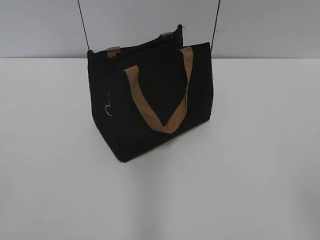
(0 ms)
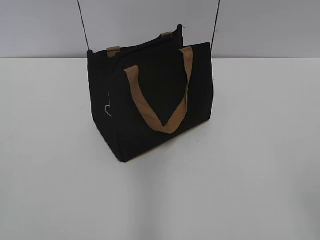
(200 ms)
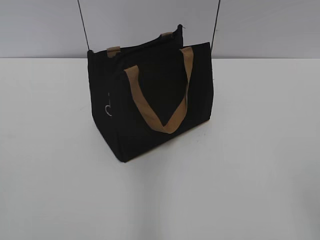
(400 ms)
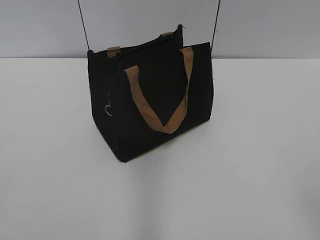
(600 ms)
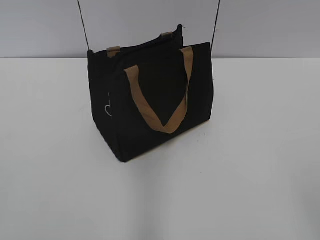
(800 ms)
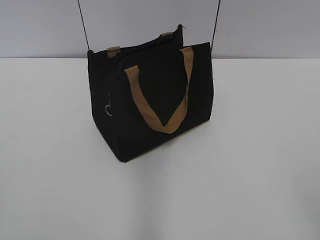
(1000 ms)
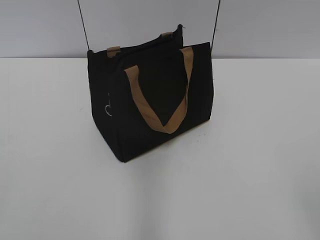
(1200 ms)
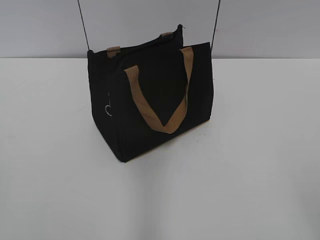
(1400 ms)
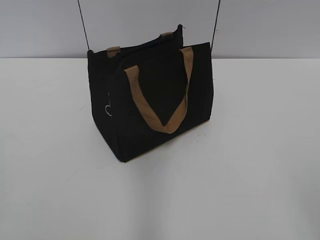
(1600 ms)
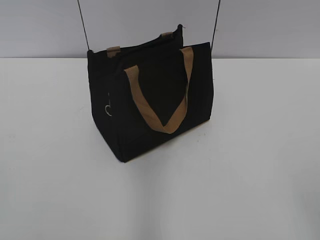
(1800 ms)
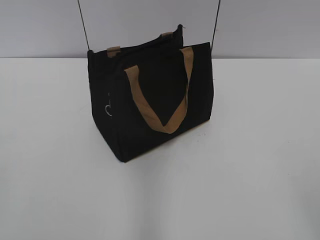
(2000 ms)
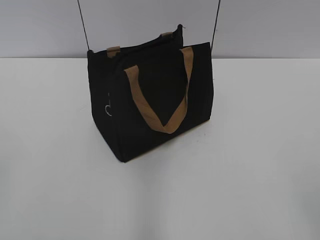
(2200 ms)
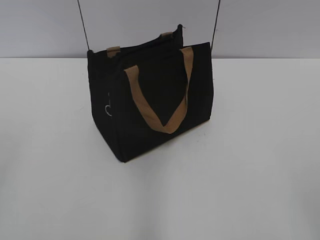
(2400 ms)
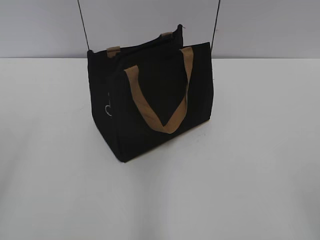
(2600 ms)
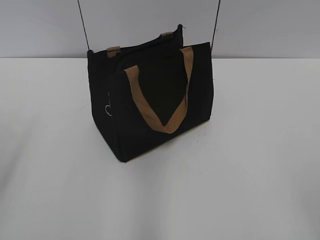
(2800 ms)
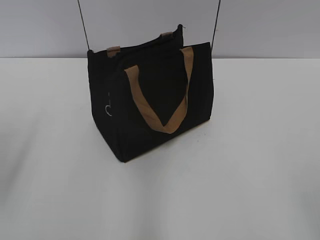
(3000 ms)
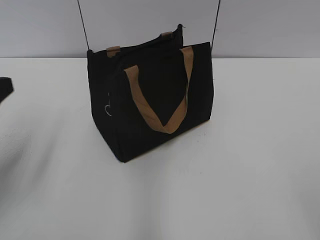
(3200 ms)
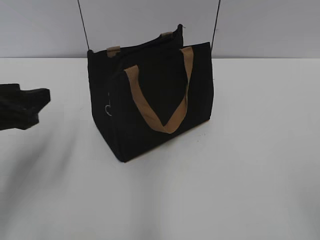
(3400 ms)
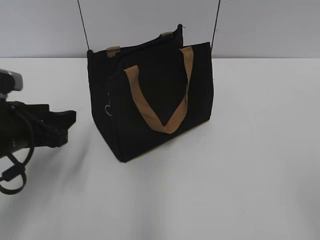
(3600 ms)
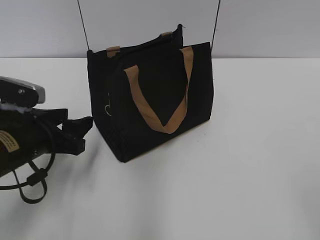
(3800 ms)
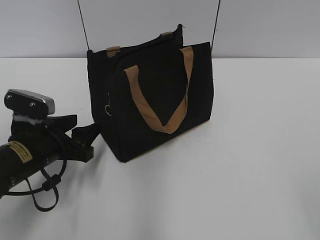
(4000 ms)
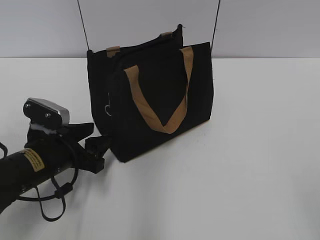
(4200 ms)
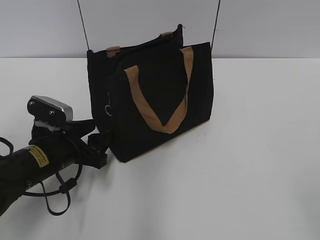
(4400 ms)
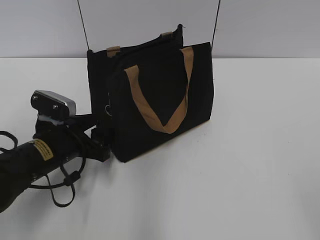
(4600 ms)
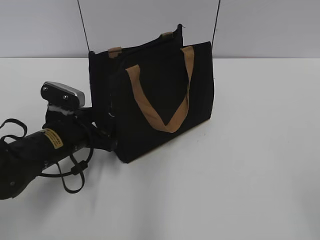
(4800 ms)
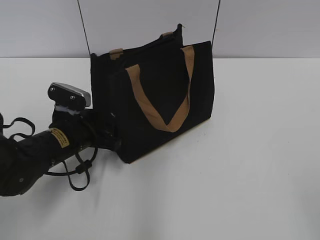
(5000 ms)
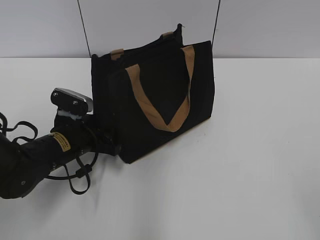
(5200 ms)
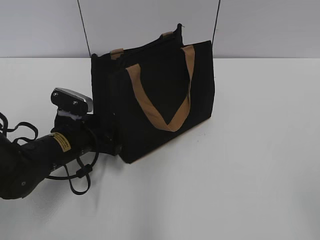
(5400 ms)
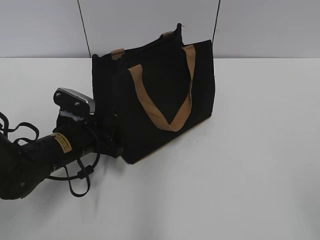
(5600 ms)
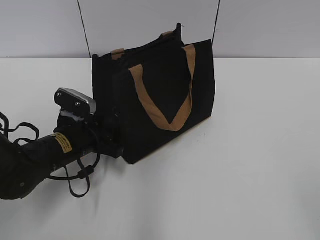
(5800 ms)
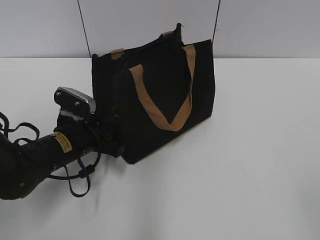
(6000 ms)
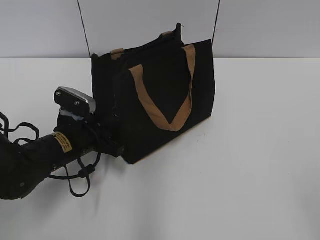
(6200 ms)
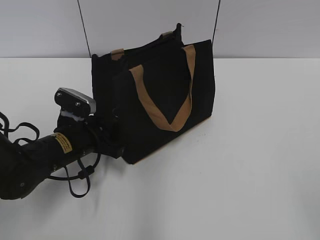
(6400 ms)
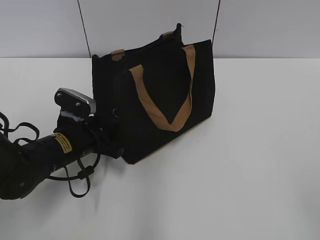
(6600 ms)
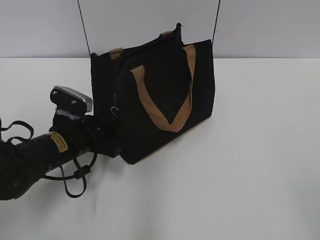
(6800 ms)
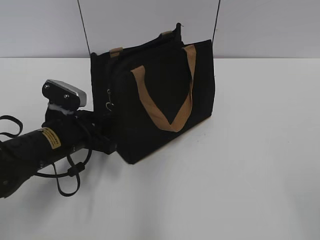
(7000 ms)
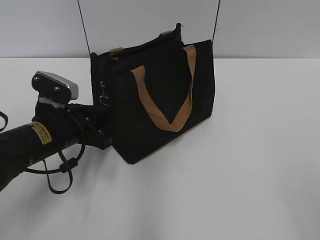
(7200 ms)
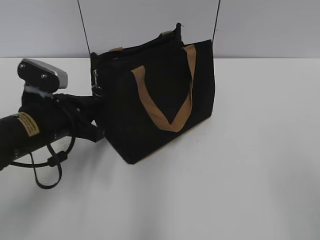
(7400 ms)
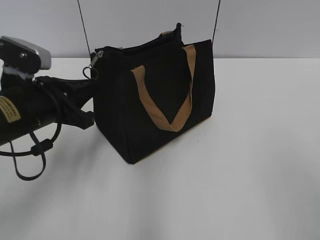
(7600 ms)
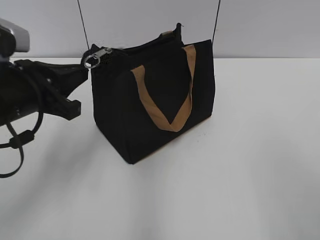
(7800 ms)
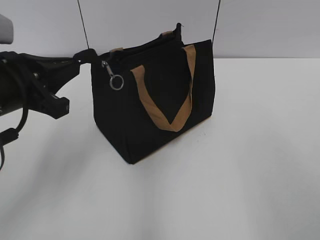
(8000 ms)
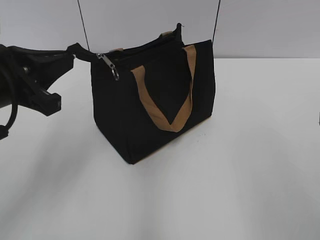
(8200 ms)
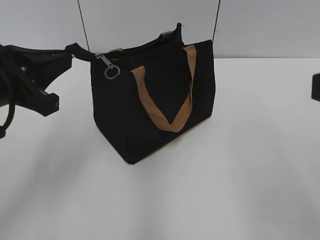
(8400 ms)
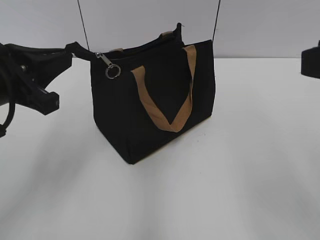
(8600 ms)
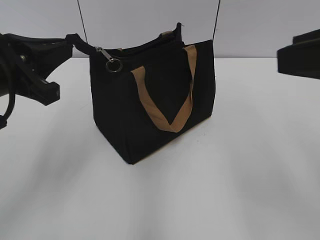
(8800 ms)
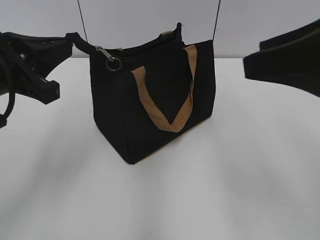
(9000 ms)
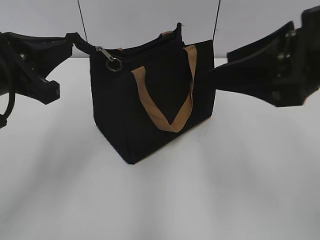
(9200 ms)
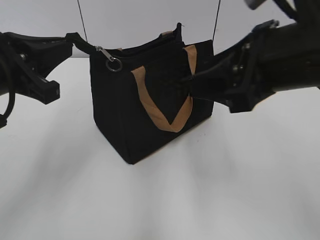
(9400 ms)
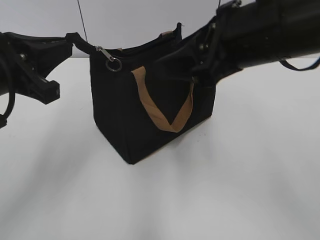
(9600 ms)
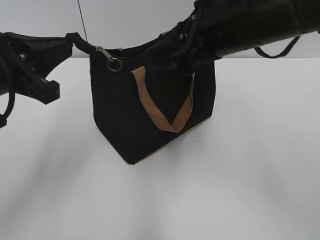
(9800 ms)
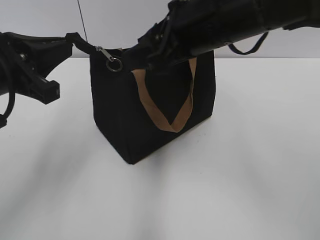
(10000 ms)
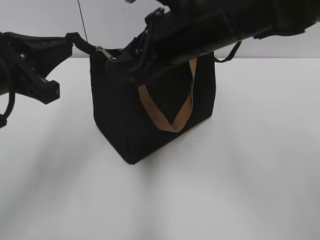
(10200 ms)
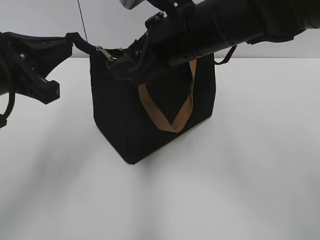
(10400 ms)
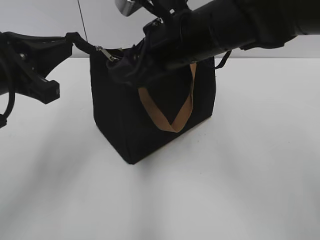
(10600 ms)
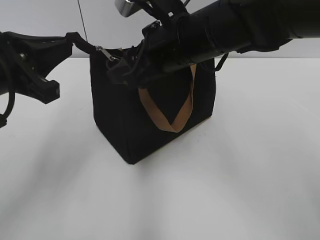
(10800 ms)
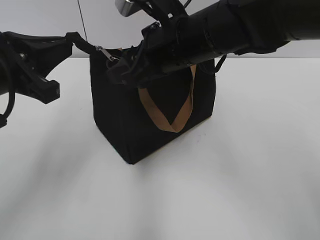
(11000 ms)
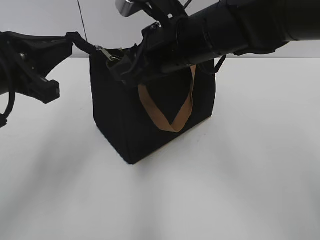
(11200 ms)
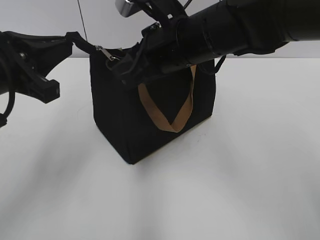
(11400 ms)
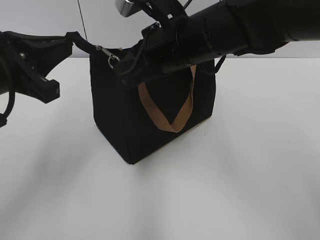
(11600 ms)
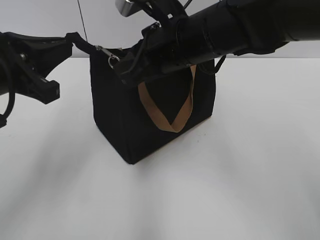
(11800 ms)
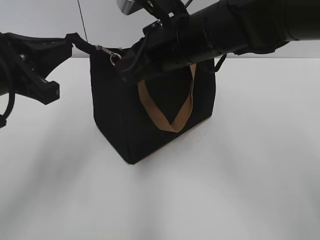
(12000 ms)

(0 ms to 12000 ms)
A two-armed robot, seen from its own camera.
3000 ms - 4400 ms: The left gripper moves downward, to the right and forward, approximately 25 cm.
4400 ms - 6000 ms: The left gripper closes its fingers.
6000 ms - 7600 ms: The left gripper shifts roughly 10 cm upward, and closes up. Meanwhile the right gripper moves about 5 cm.
7600 ms - 9000 ms: The left gripper goes approximately 10 cm upward. Meanwhile the right gripper moves forward, approximately 15 cm.
9000 ms - 10400 ms: The right gripper heads to the left, forward and downward, covering roughly 20 cm.
10400 ms - 12000 ms: The right gripper closes.

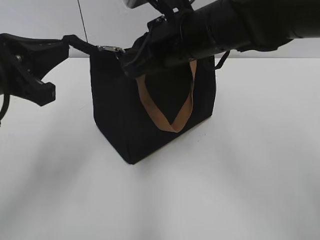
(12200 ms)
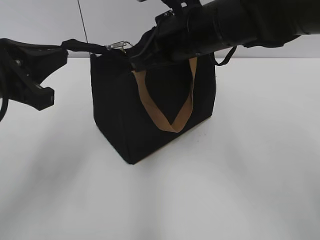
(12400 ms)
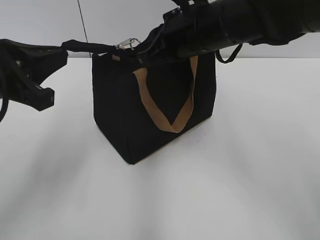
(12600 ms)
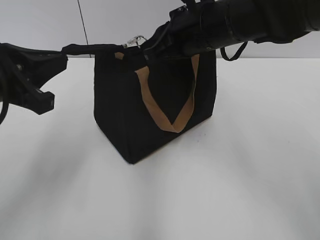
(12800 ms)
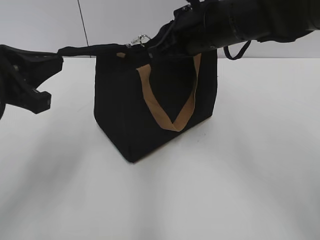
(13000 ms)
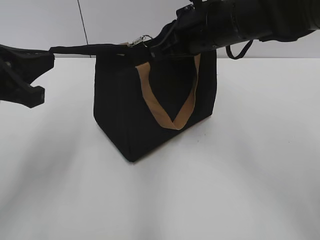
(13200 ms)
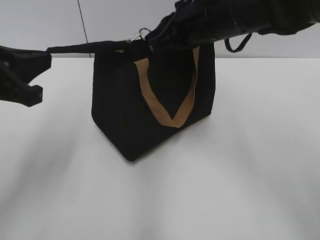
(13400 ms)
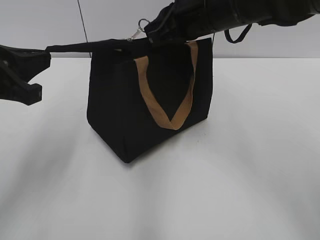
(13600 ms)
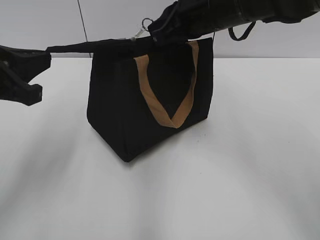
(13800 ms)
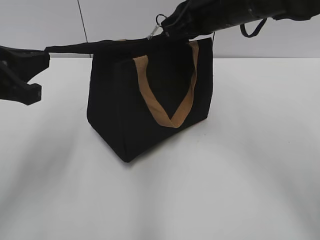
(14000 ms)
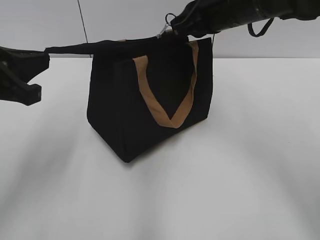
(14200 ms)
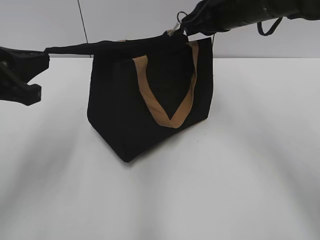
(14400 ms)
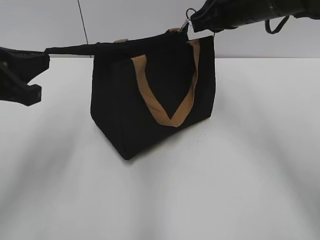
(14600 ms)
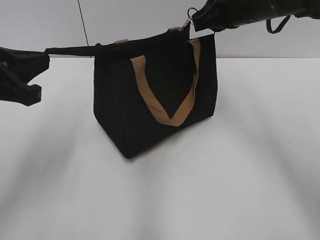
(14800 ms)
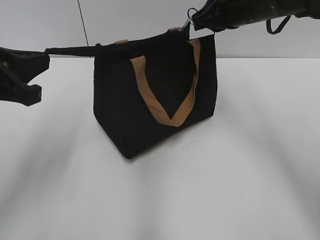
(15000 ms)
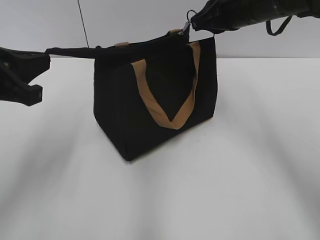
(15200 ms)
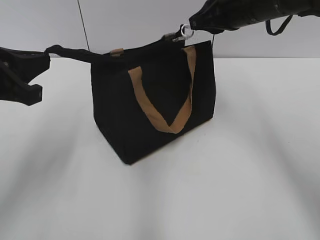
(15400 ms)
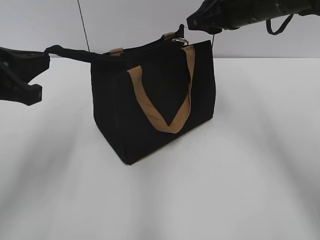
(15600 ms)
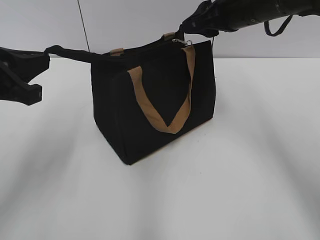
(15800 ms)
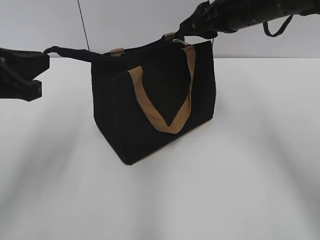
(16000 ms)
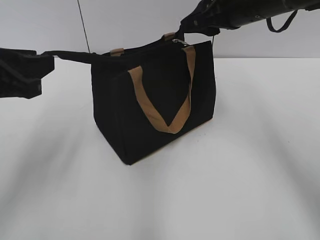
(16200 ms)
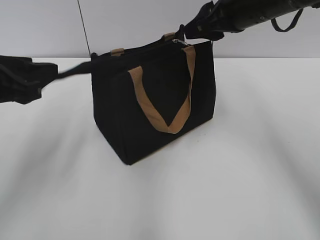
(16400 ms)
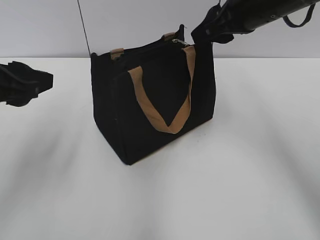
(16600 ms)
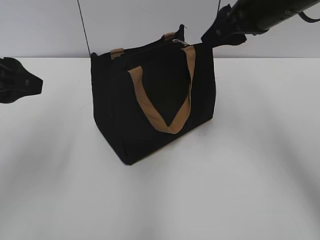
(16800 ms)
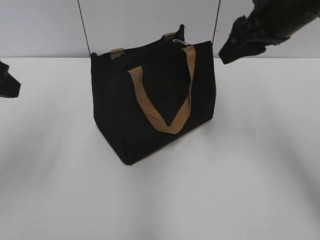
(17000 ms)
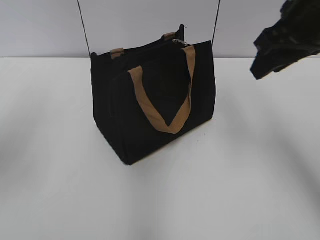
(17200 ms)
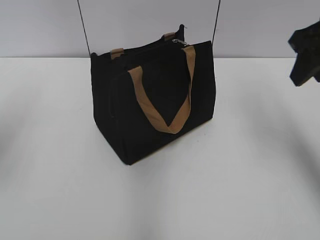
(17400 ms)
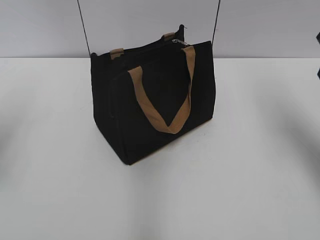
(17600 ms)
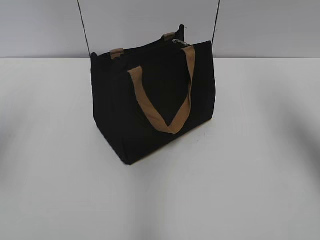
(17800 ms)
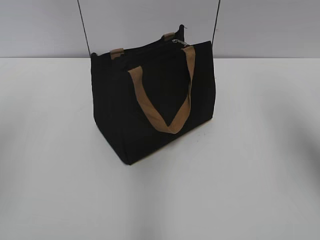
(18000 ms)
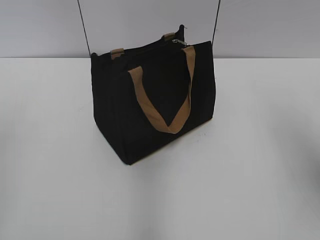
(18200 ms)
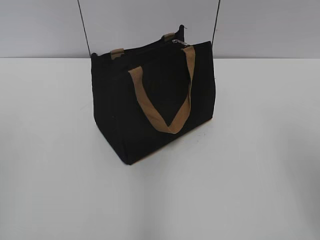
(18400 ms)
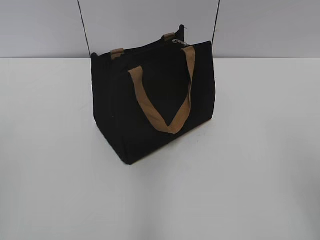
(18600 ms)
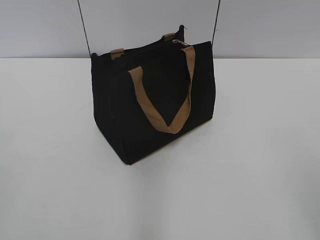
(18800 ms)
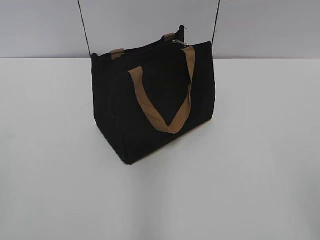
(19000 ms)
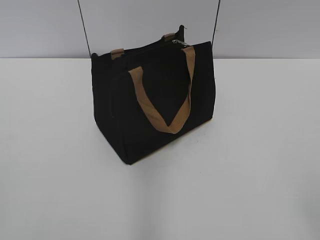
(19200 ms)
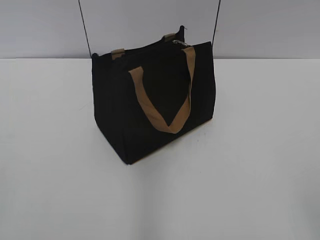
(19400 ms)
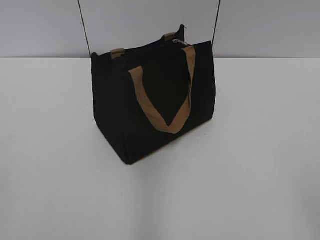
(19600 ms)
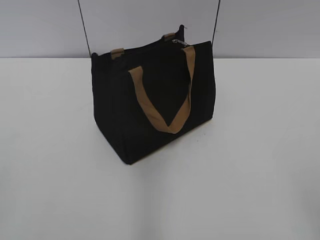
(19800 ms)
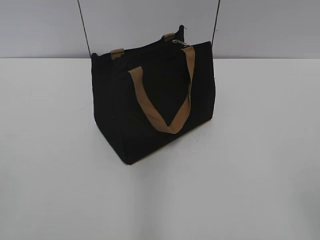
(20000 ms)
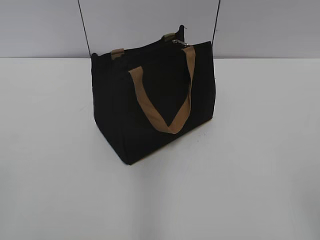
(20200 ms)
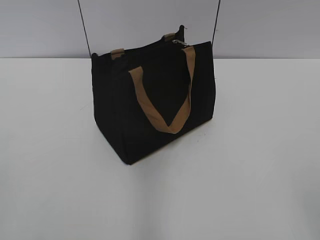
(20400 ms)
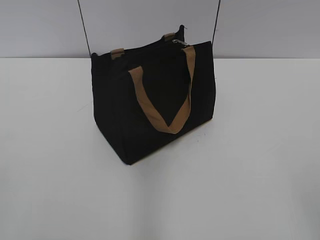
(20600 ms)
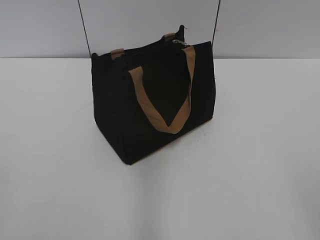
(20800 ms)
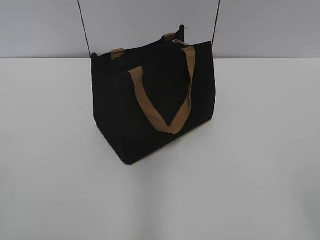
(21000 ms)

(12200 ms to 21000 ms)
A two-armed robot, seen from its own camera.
Step, 12200 ms - 15200 ms: Zip up the bag with your right hand.
12200 ms - 13600 ms: The right gripper changes place by about 5 cm.
13600 ms - 15200 ms: The right gripper goes roughly 5 cm to the right.
15200 ms - 16600 ms: The right gripper opens, while the left gripper opens.
16600 ms - 18000 ms: The right gripper is displaced to the right and backward by some 15 cm; the left gripper goes some 10 cm to the left and upward.
18000 ms - 19600 ms: The right gripper moves backward, some 25 cm.
19600 ms - 21000 ms: Neither gripper changes place.
